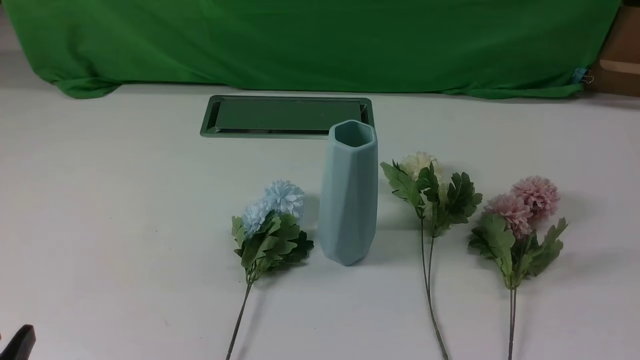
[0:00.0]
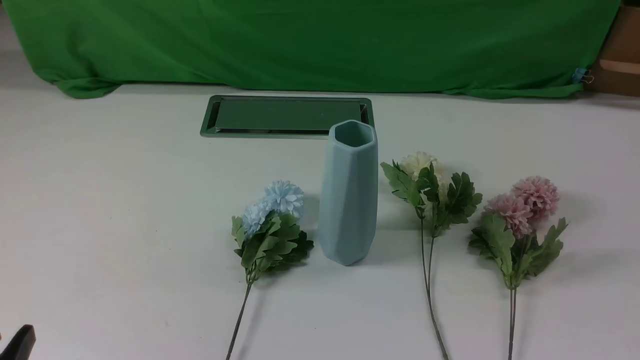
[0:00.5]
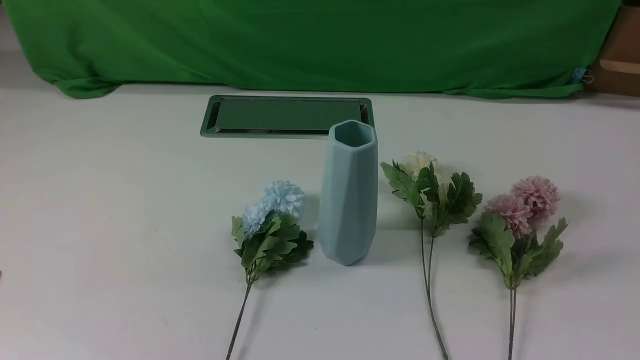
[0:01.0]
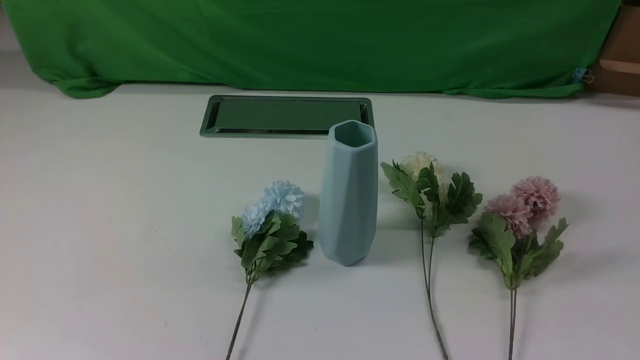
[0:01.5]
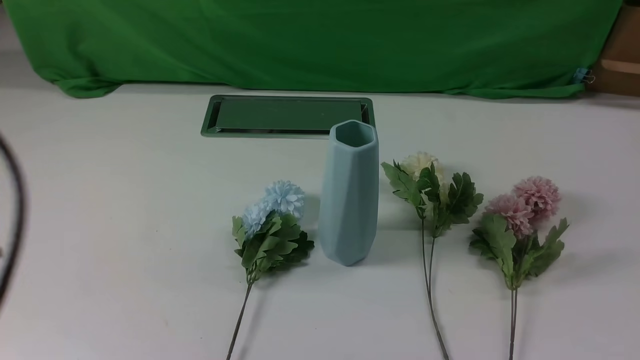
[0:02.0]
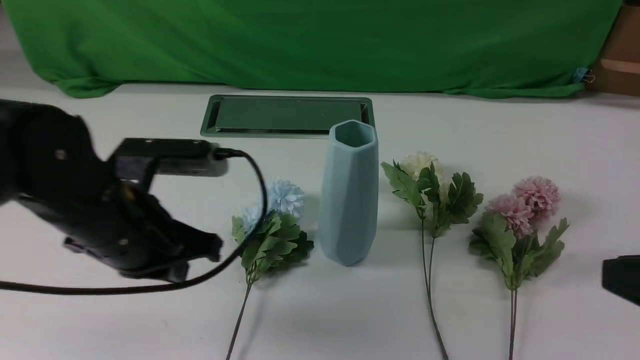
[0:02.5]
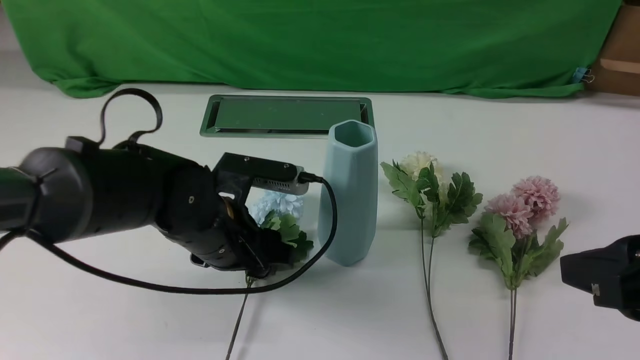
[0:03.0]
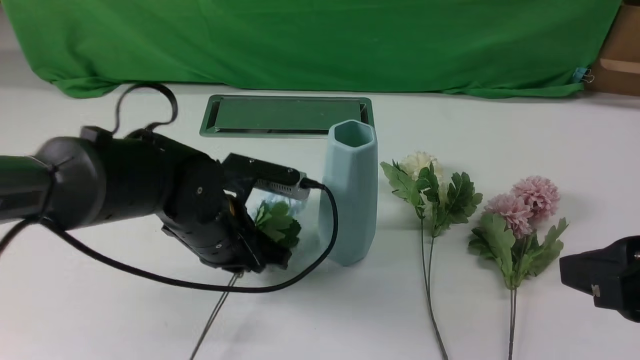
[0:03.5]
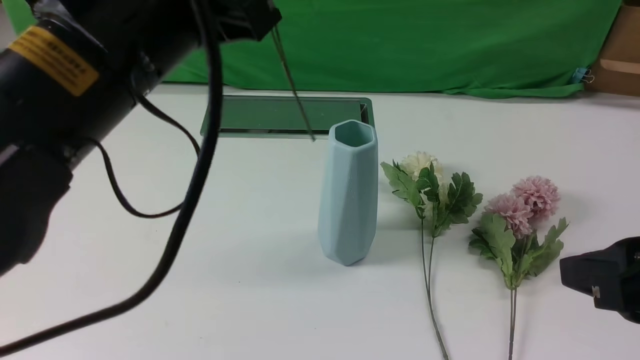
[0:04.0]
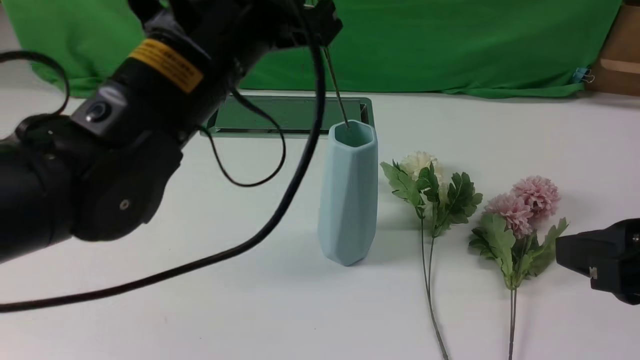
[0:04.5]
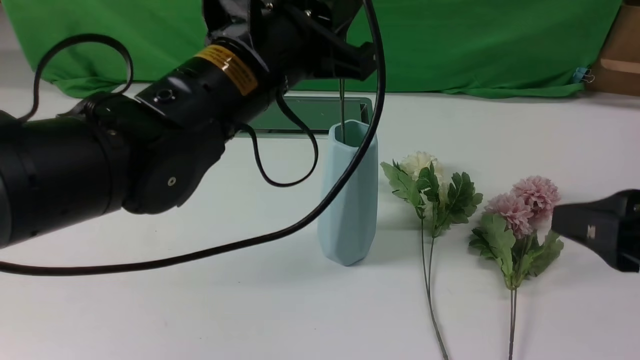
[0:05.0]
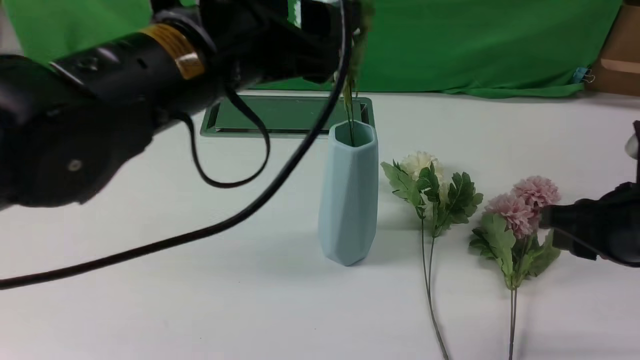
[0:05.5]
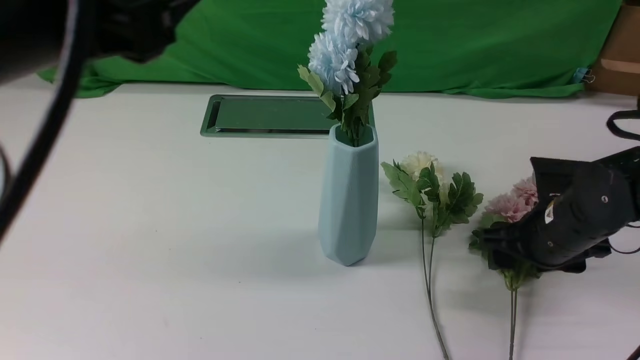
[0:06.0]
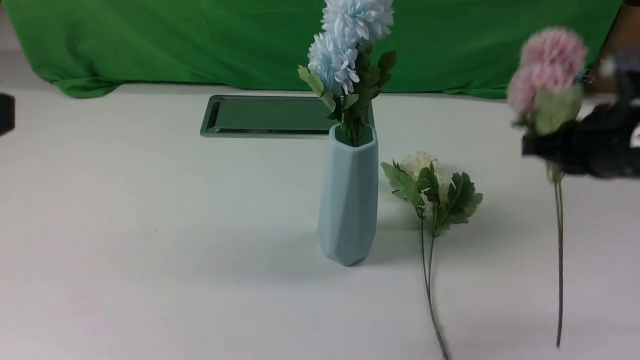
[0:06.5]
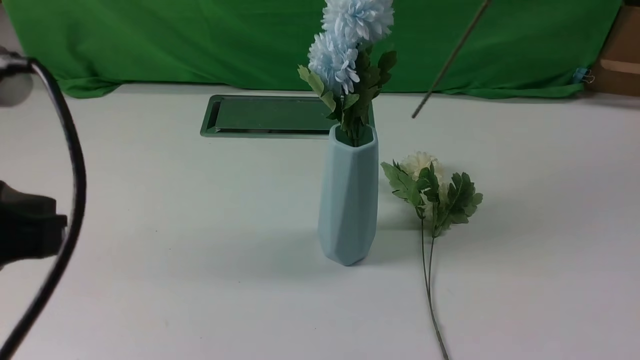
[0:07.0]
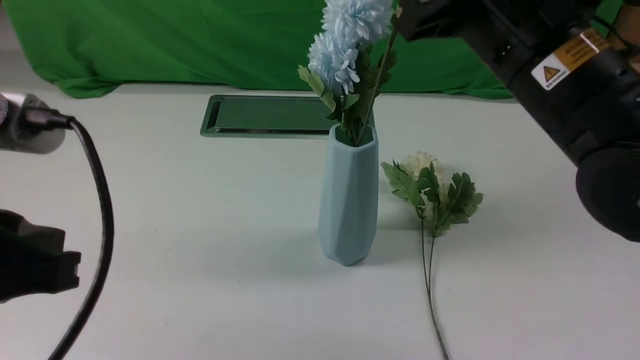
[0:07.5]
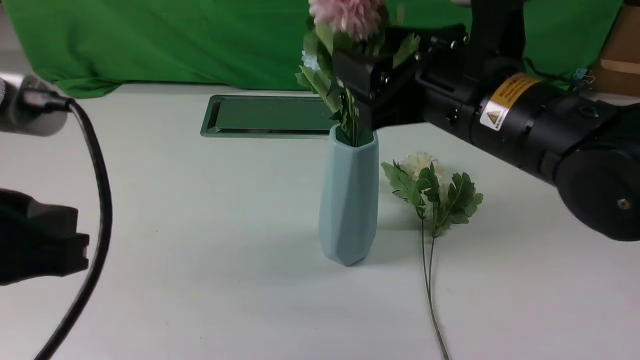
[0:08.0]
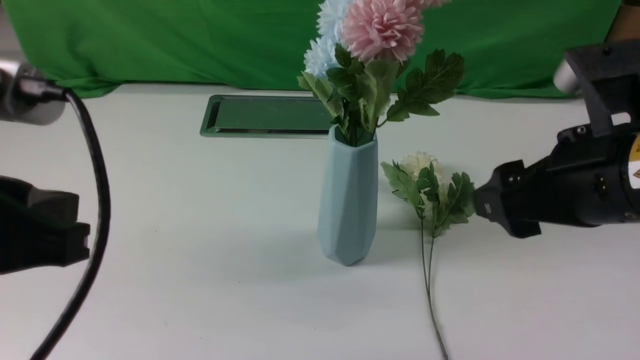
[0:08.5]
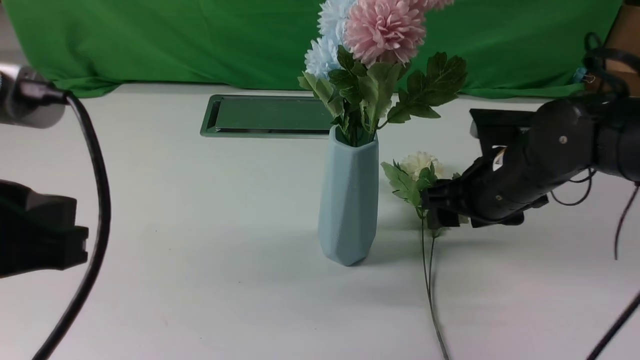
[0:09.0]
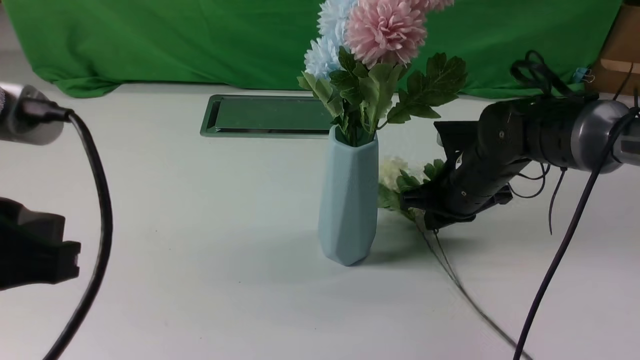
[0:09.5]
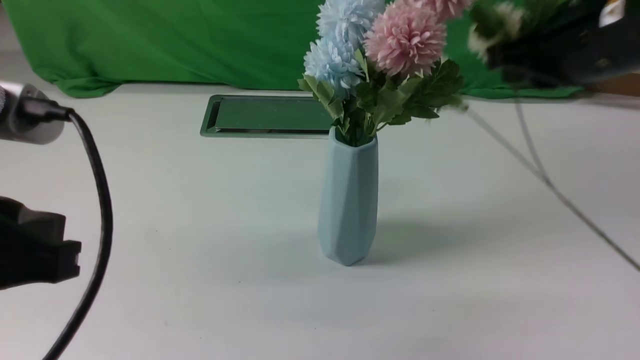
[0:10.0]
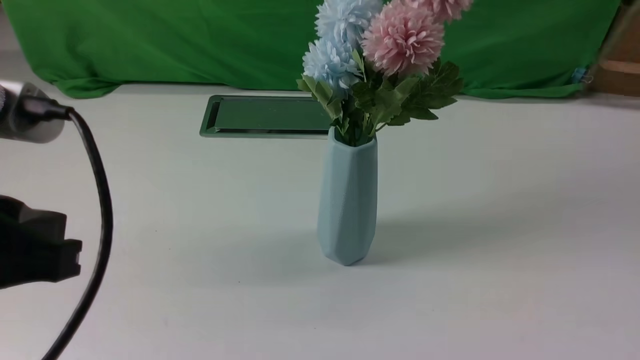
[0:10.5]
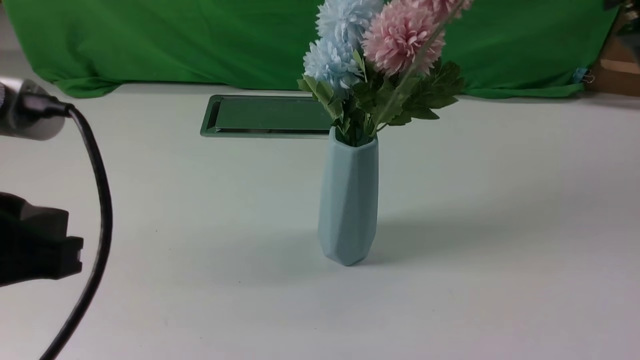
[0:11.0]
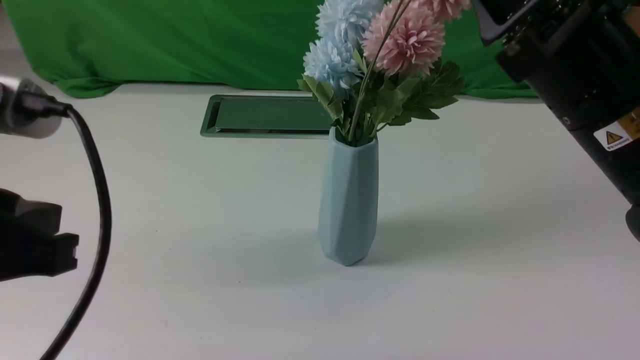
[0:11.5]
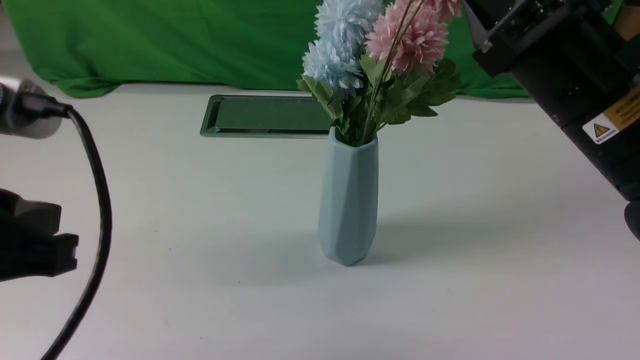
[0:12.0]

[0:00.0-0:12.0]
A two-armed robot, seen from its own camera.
Task of the whole recording: insert the flowers into the vase on the white table.
Step, 0:00.0 to 0:03.0: use the left arm to grab a bunch of fresh flowers.
Step, 0:03.5 to 0:05.5: use the left arm to insert the flowers into the vase.
Step, 0:06.5 to 0:08.0: use the right arm to insert the flowers into the vase.
Step, 0:08.5 to 0:09.5: use the right arm to grab a bunch of fresh flowers.
0:00.0 to 0:02.0: The left gripper heads upward and forward, covering some 15 cm, and closes.
0:02.0 to 0:04.0: The right gripper heads forward, to the left and upward, covering approximately 15 cm. Meanwhile the left gripper goes roughly 15 cm to the right and forward, travels downward and back again, roughly 15 cm each way, and opens and closes again.
0:04.0 to 0:06.0: The left gripper goes approximately 10 cm backward and upward, and opens. The right gripper travels forward and downward by about 25 cm, and opens.
0:06.0 to 0:08.0: The left gripper moves downward, roughly 10 cm, and closes, while the right gripper moves upward and to the left, some 20 cm, and closes, then opens again.
0:08.0 to 0:10.0: The right gripper moves to the right, roughly 10 cm, moves roughly 15 cm downward and comes back, and closes.
0:10.0 to 0:12.0: The right gripper travels backward and back again, about 15 cm each way.

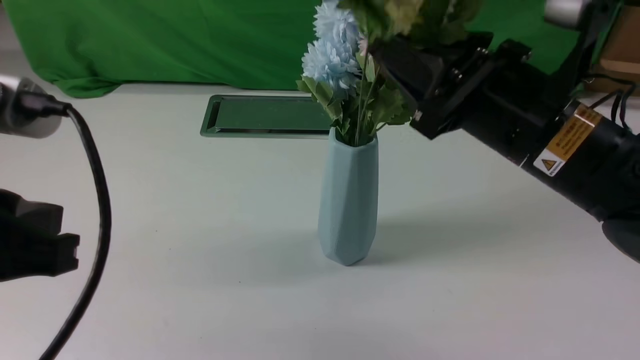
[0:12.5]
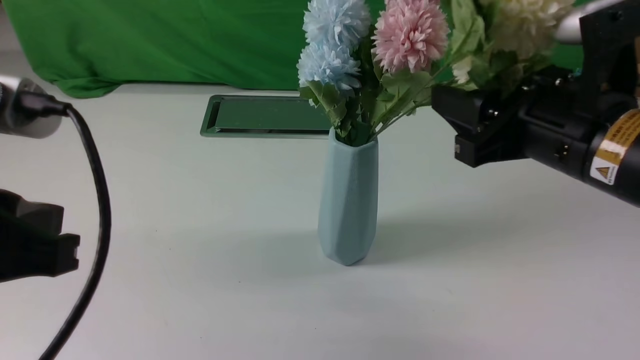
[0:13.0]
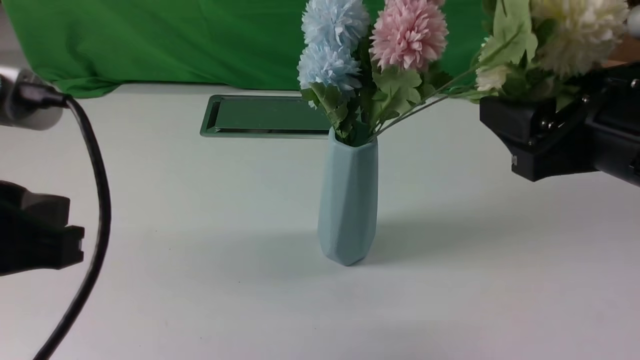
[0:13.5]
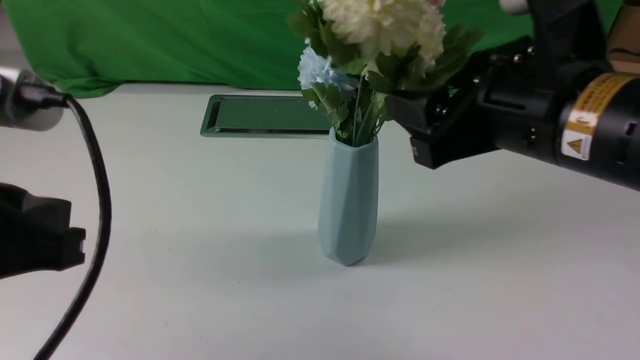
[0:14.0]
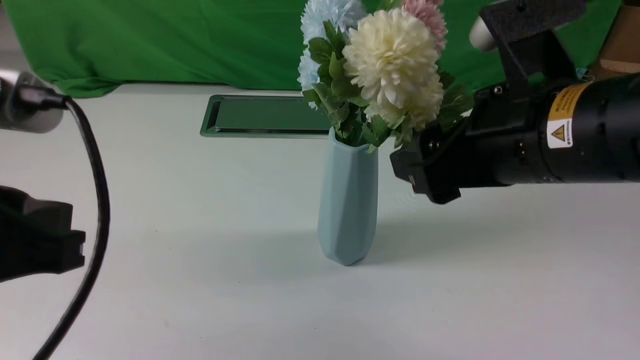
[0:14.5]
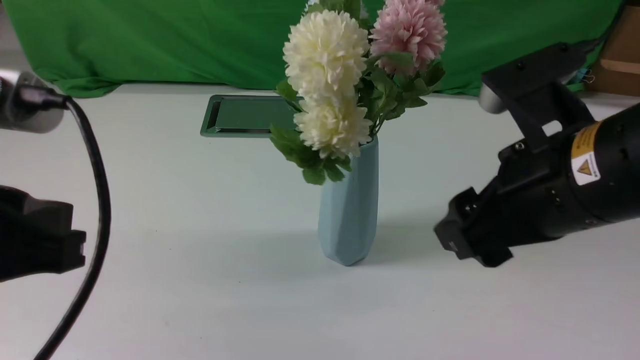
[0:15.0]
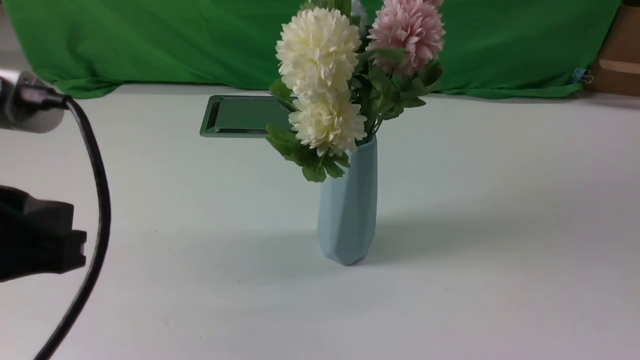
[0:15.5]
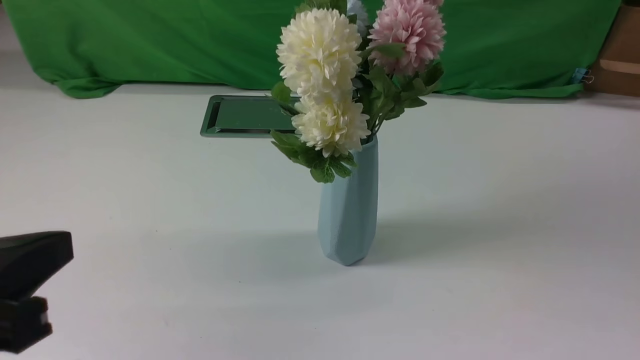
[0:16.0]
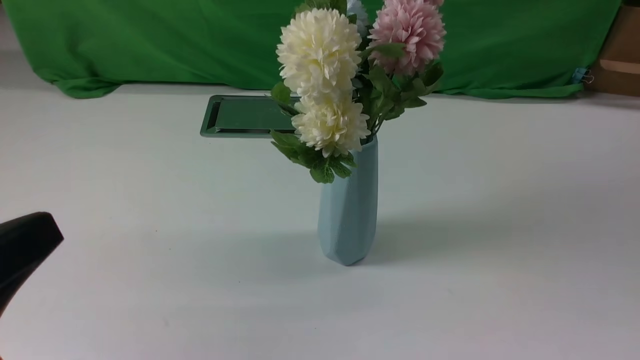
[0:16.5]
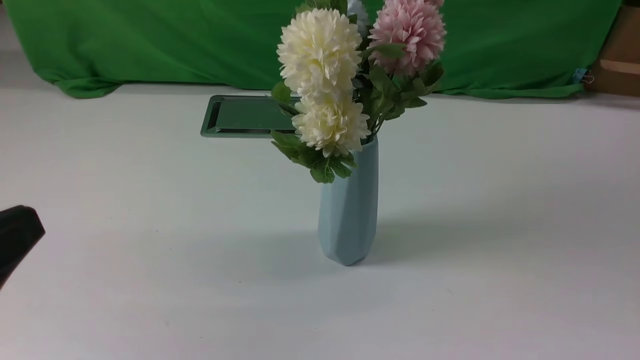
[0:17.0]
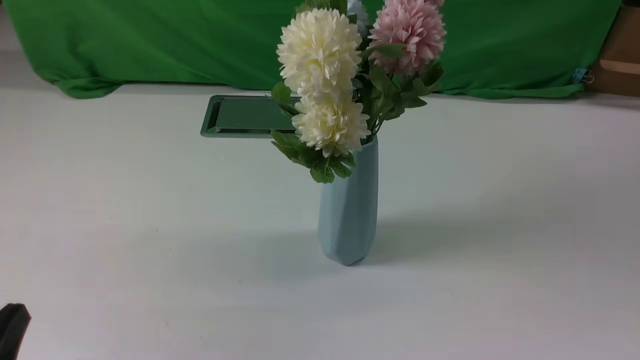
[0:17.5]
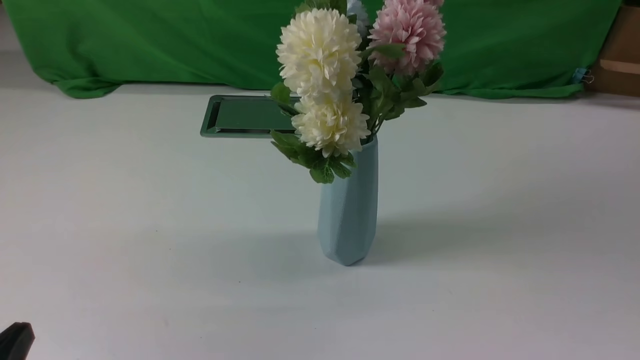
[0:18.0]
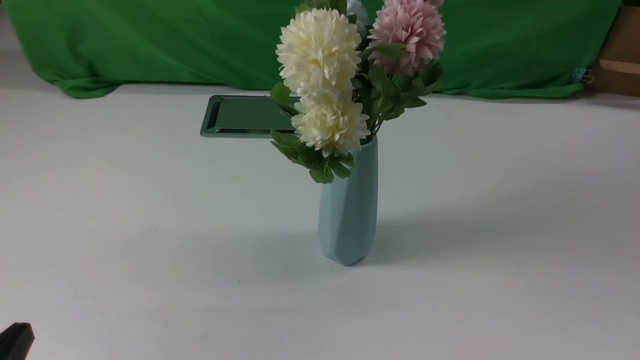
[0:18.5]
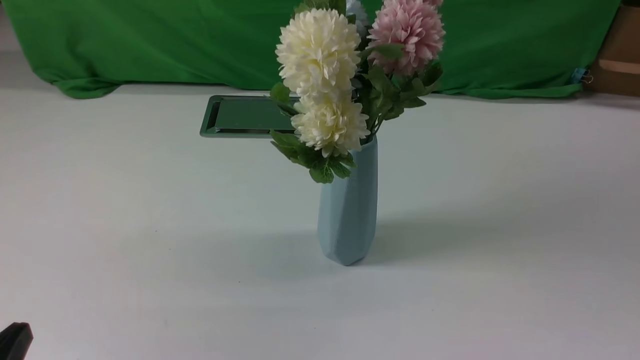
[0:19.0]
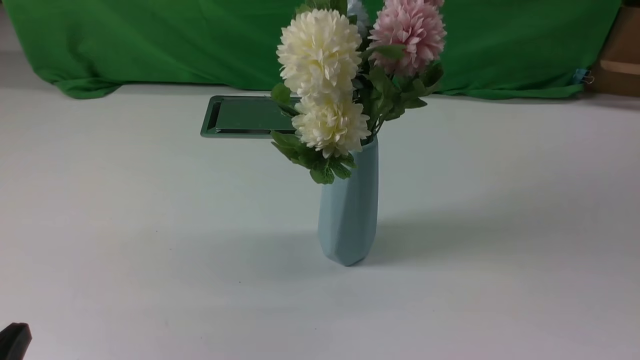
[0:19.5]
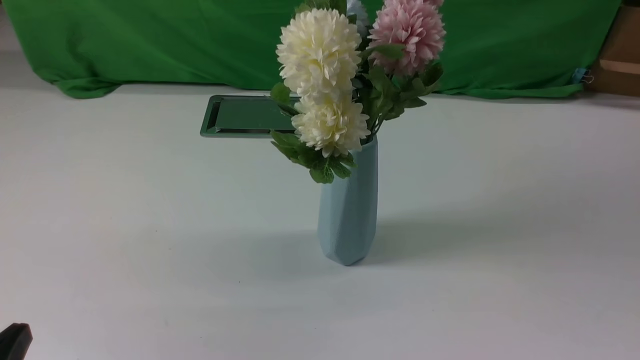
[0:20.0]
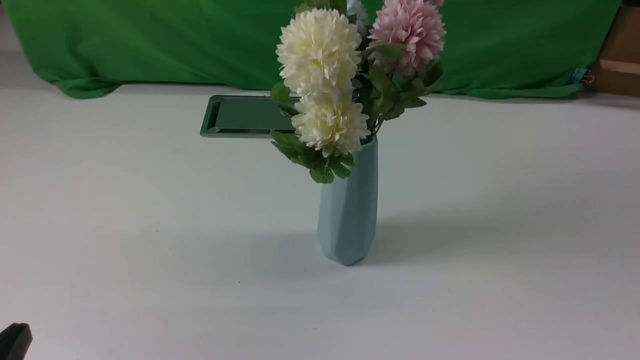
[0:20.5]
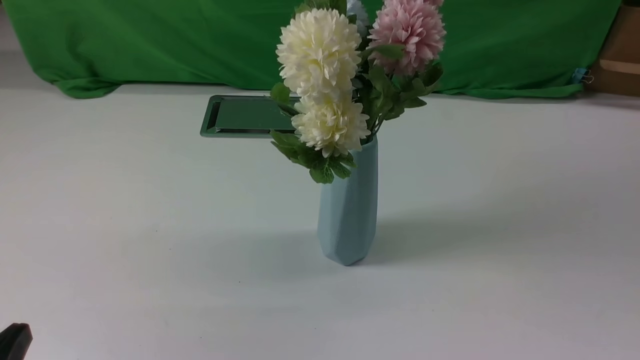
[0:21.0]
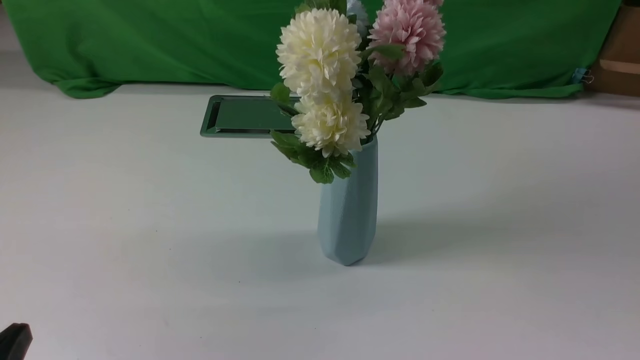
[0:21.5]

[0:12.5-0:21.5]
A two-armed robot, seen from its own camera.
Task of the whole recording: insert the flowers into the vase on the white table.
0:12.5 to 0:14.5: The right gripper opens its fingers.
0:14.5 to 0:17.0: The left gripper travels backward and downward by about 10 cm, while the right gripper travels backward and to the right by about 25 cm, and closes its fingers.
0:17.0 to 0:19.5: The left gripper shifts about 10 cm downward.
0:19.5 to 0:21.5: The two grippers keep their place.
